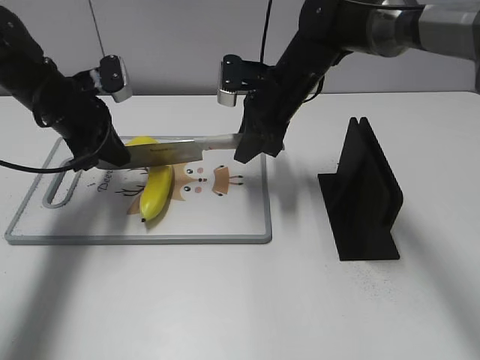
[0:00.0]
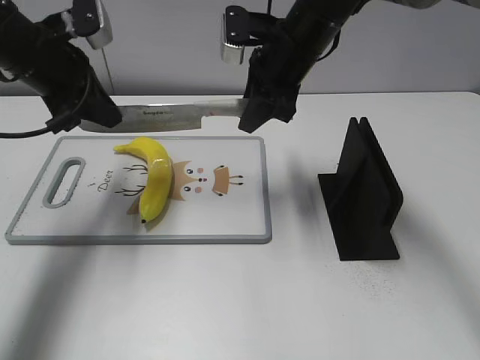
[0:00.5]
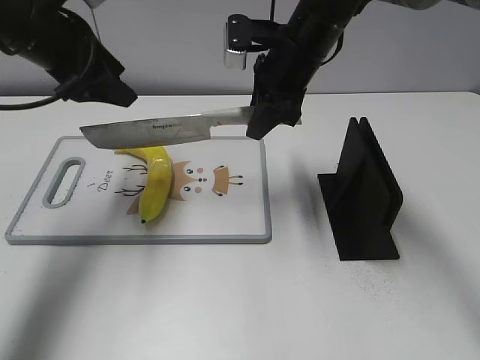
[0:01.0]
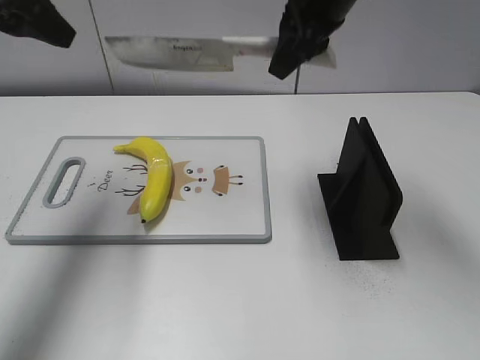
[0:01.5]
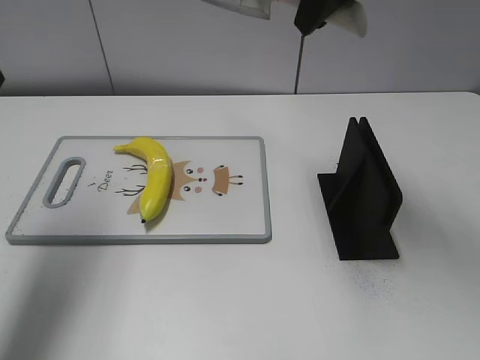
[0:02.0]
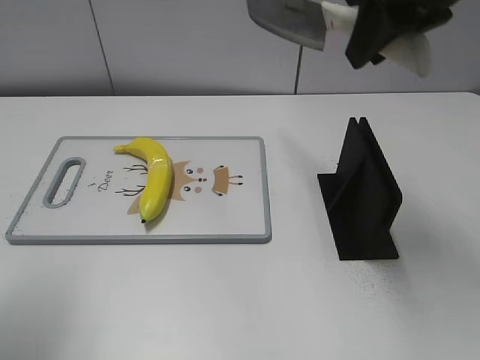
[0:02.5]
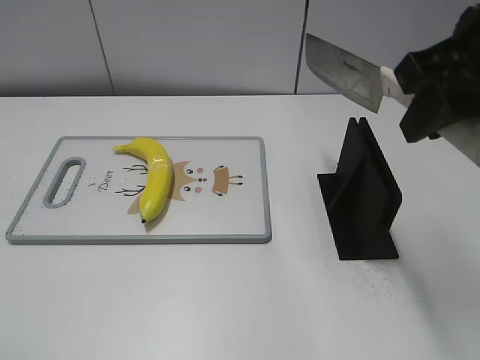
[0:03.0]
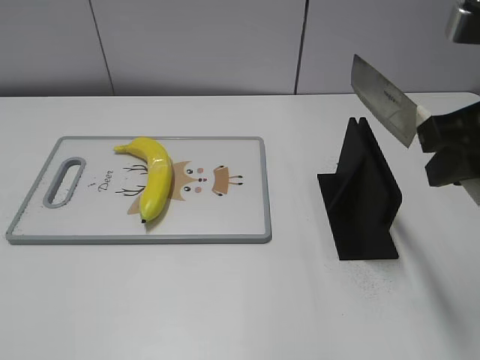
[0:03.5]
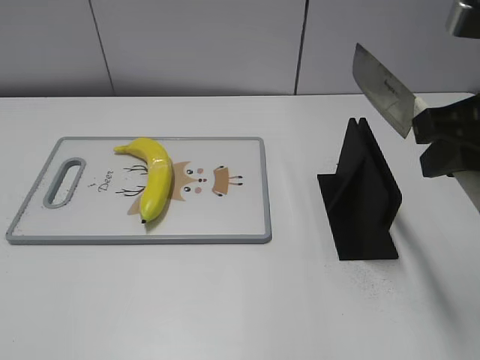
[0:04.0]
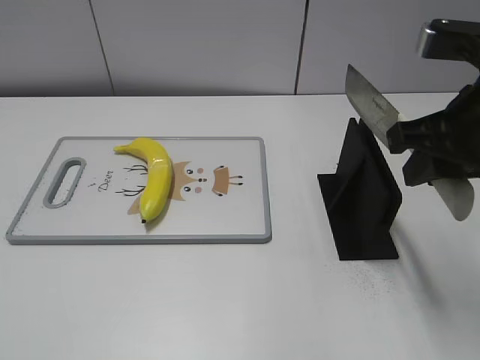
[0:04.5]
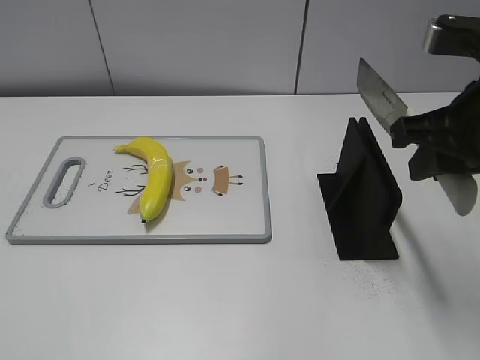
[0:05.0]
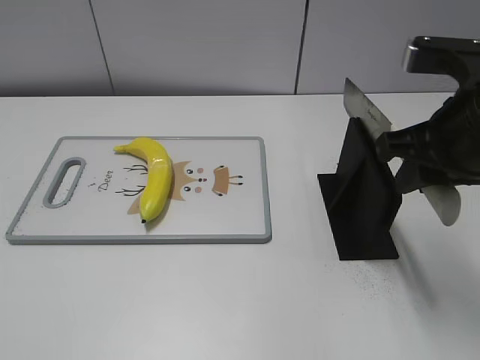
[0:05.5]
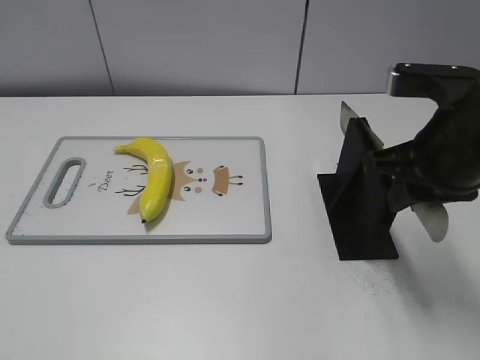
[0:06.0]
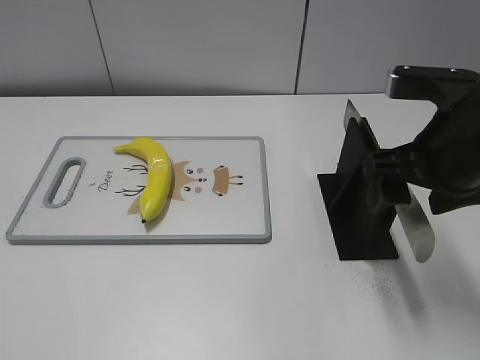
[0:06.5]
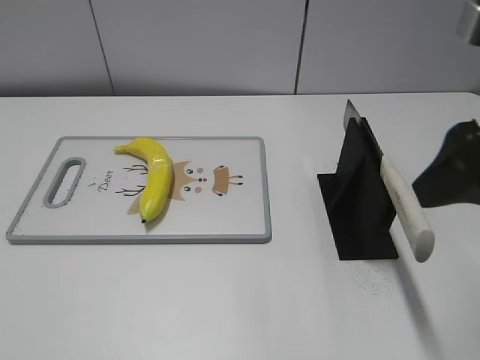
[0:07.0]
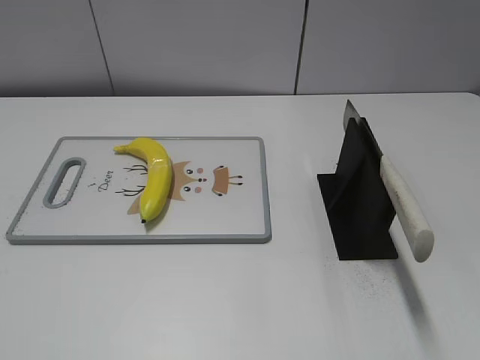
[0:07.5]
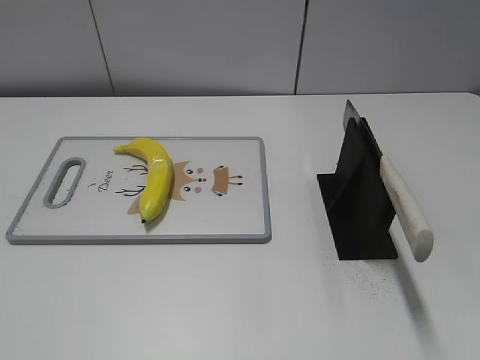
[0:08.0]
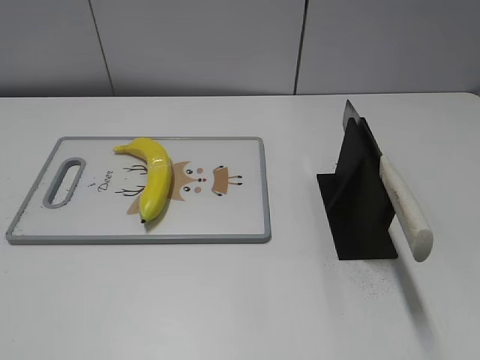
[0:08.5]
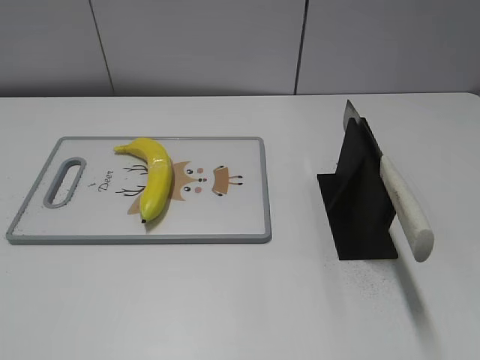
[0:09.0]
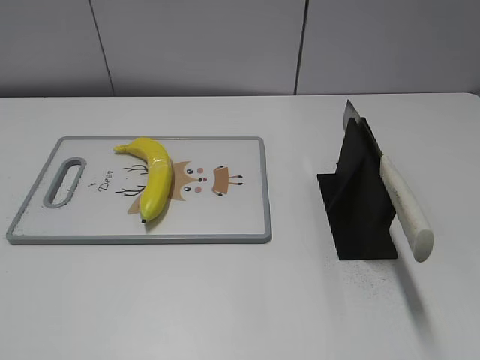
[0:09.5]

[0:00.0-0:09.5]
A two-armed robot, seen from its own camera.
Task of the whole recording: cut plastic banana.
Step, 0:01.0 to 0:02.5: Cut the banana with your right hand.
Step, 0:03.5 to 0:09.5: Place the knife on the storage rack with your right hand.
0:00.0 to 0:02.0: The right gripper goes roughly 20 cm upward. The left gripper moves upward and backward, some 20 cm, and opens its fingers.
0:02.0 to 0:04.0: The right gripper is displaced backward, to the right and downward by roughly 20 cm; the left gripper shifts roughly 30 cm backward.
0:04.0 to 0:05.5: The right gripper ends up roughly 5 cm from where it was.
0:05.5 to 0:07.5: The right gripper goes some 20 cm backward, and opens up.
